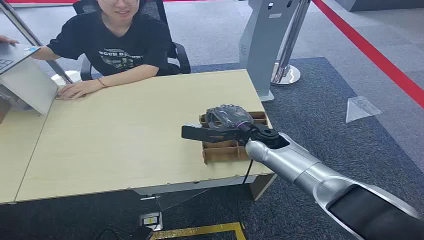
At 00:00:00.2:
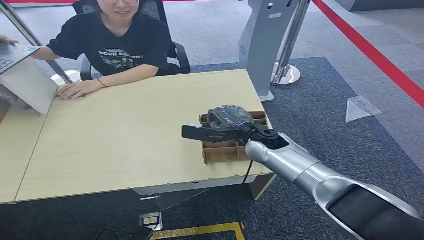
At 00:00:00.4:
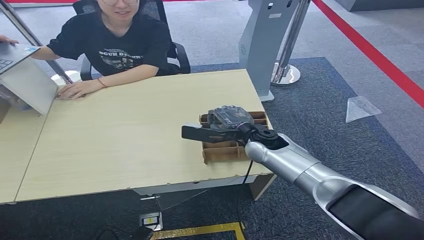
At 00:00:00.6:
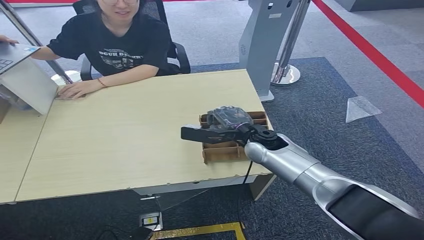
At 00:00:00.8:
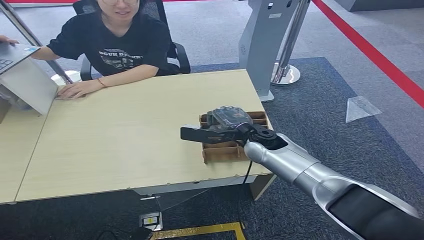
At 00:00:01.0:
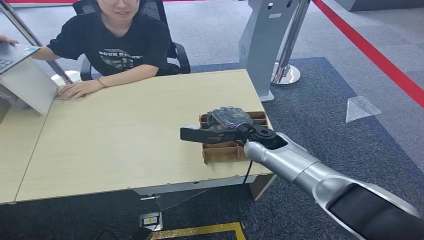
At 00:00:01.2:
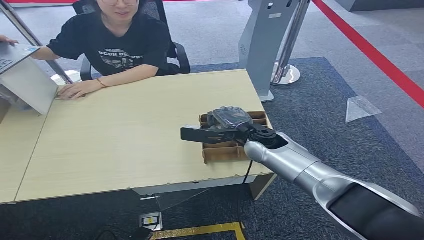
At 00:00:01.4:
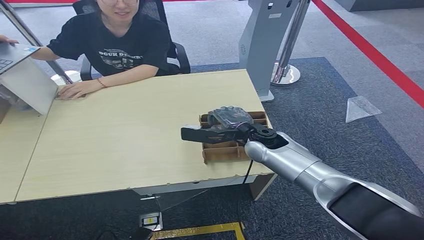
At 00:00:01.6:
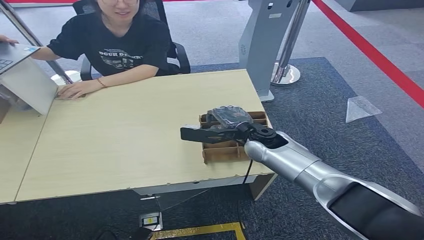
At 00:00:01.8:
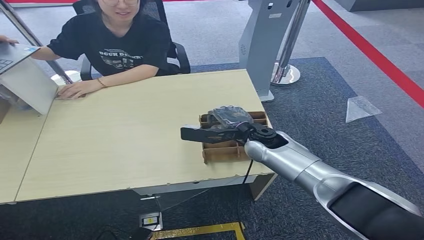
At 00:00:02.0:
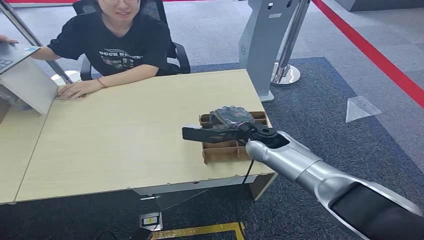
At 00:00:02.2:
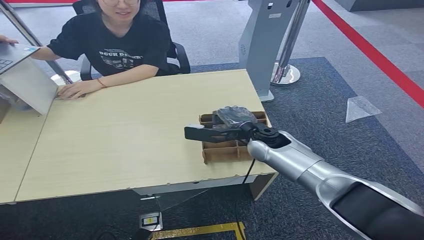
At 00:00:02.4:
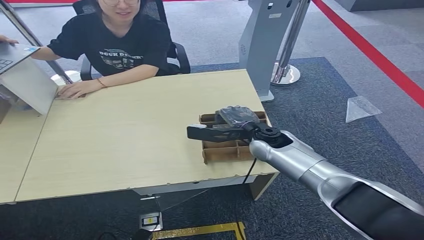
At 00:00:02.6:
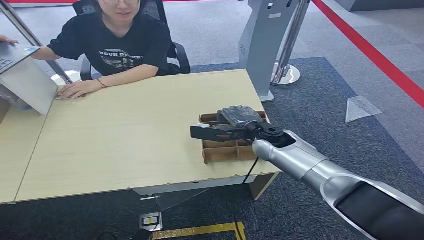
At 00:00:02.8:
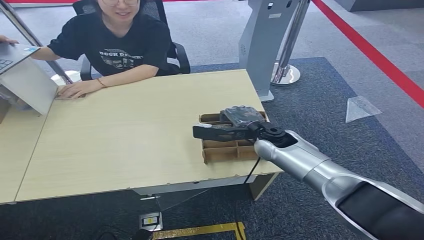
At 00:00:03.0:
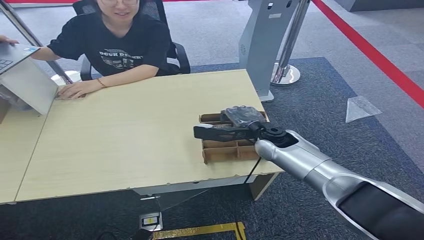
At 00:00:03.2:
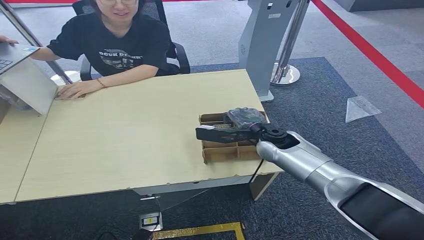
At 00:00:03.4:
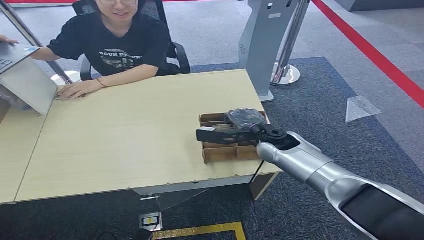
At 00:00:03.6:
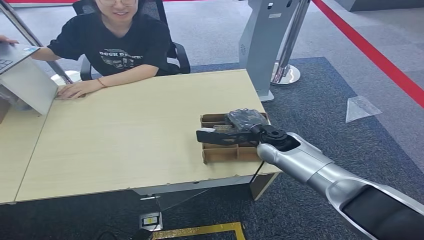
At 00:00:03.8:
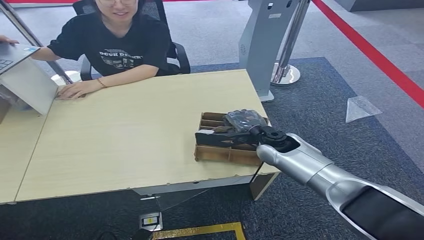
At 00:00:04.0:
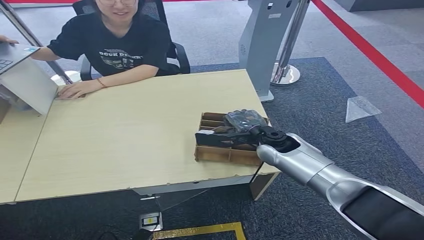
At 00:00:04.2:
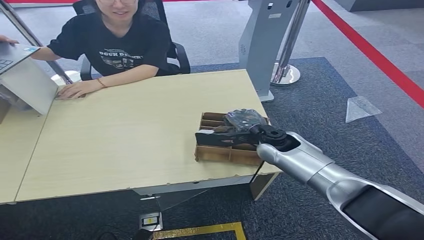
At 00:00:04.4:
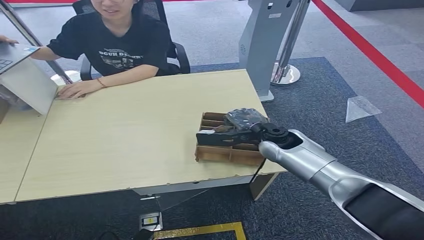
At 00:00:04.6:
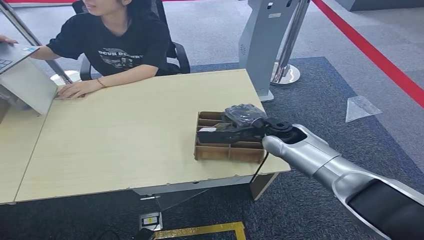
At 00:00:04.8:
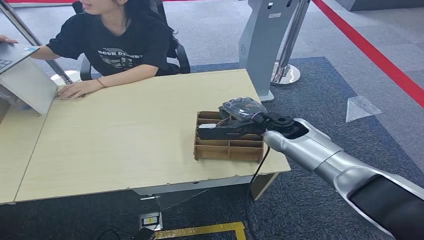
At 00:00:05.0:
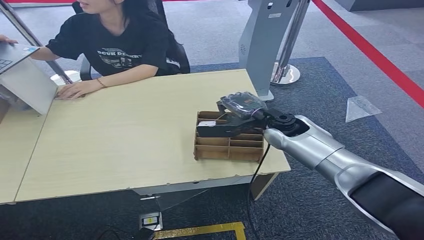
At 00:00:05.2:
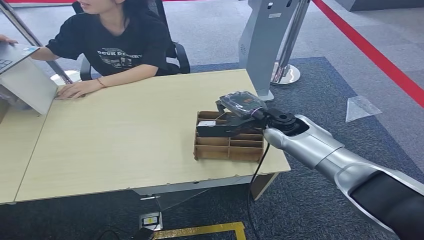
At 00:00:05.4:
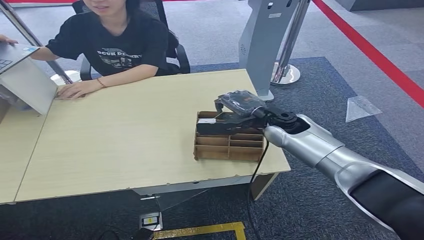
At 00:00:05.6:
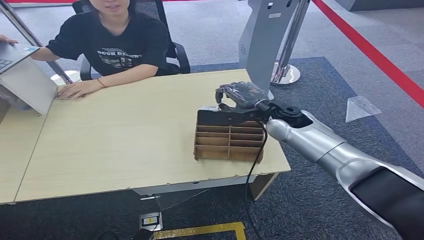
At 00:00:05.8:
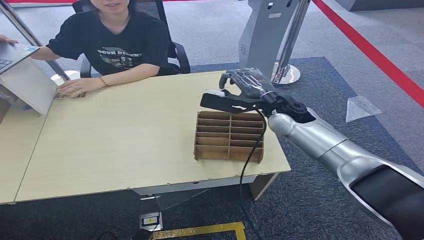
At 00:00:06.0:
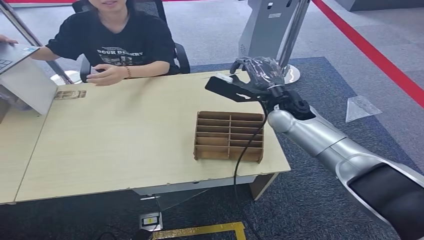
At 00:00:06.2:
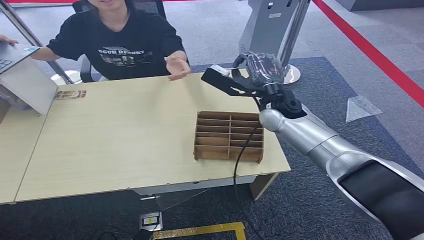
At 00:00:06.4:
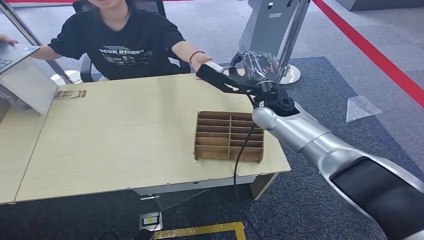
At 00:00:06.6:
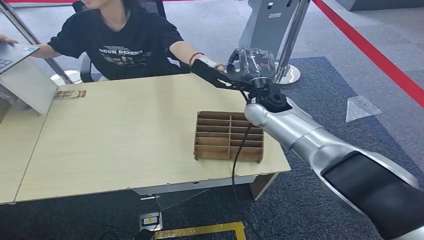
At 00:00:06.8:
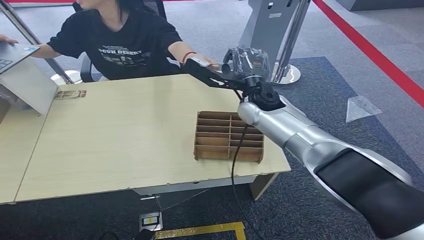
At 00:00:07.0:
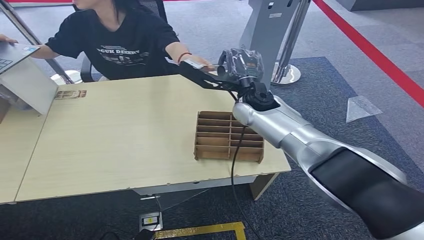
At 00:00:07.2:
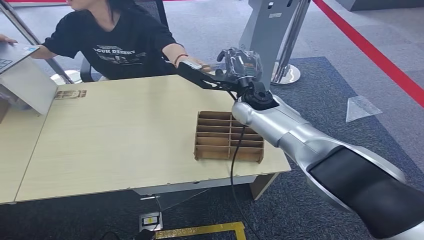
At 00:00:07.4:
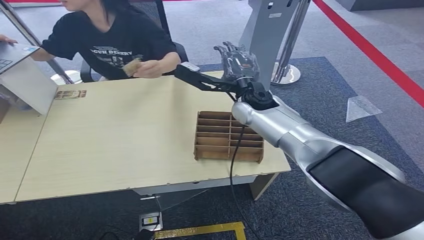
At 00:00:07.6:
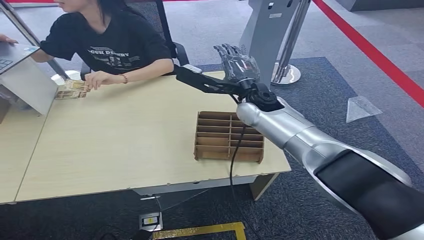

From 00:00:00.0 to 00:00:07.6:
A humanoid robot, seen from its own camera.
Step, from 00:00:00.0 to 00:00:04.6: Pick up the room card from the card holder.
Step, from 00:00:04.8 to 00:00:07.6: Hand the room card to the target.
From 00:00:01.6 to 00:00:04.6: The hands stay close to where they were, moving slightly.
From 00:00:04.6 to 00:00:06.0: The right hand travels upward by some 10 cm.
From 00:00:06.0 to 00:00:07.6: The right hand is displaced to the left by about 5 cm.
